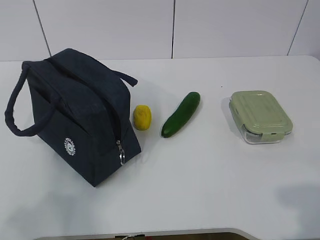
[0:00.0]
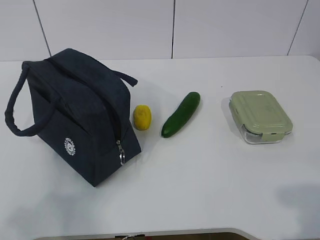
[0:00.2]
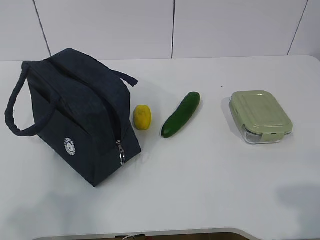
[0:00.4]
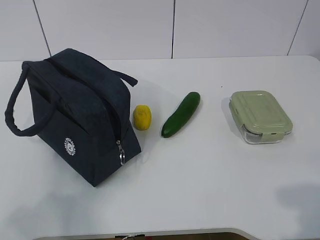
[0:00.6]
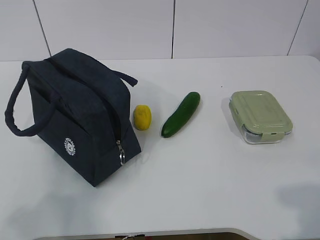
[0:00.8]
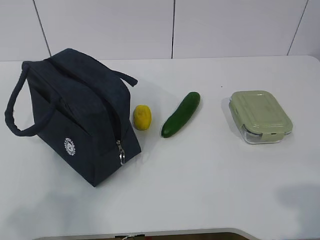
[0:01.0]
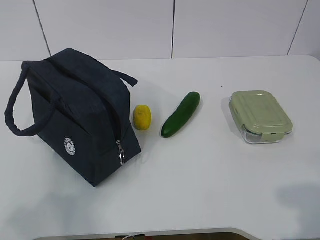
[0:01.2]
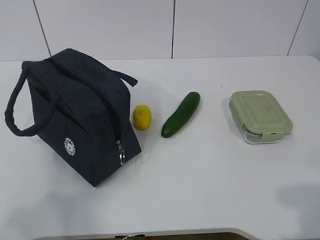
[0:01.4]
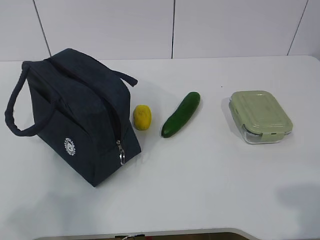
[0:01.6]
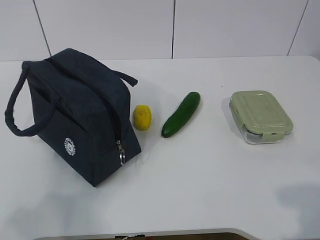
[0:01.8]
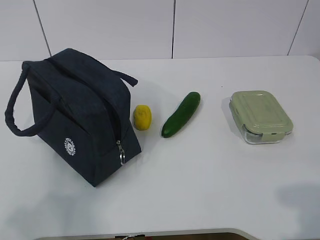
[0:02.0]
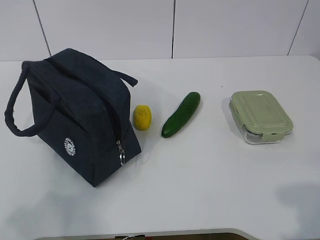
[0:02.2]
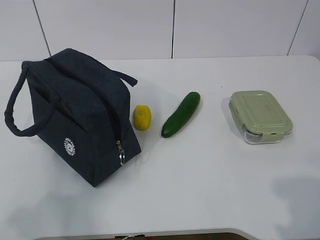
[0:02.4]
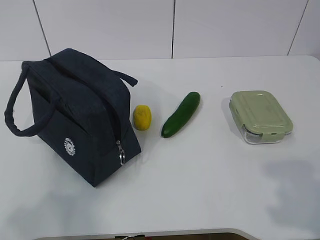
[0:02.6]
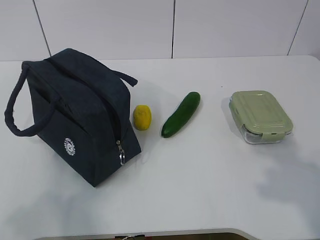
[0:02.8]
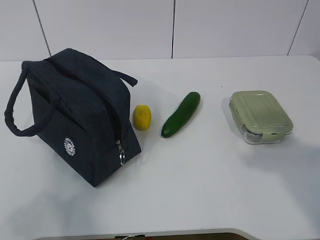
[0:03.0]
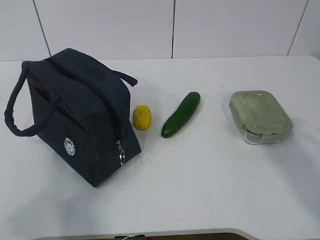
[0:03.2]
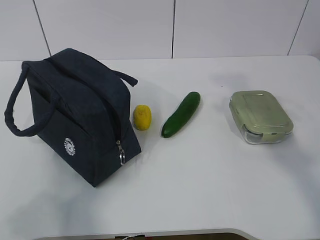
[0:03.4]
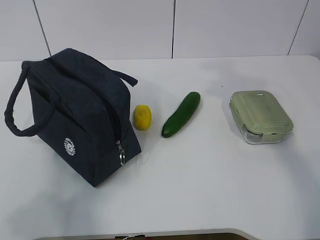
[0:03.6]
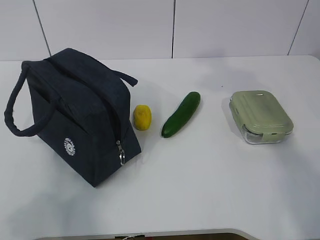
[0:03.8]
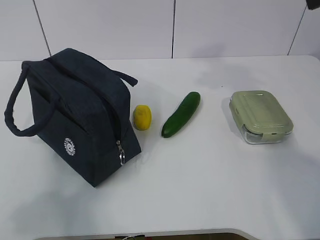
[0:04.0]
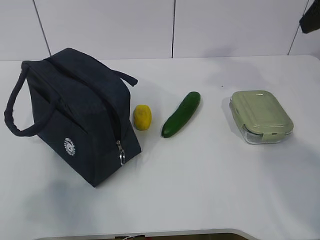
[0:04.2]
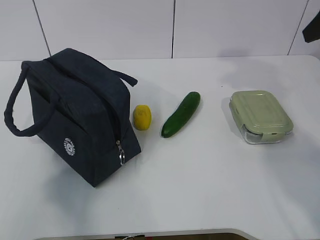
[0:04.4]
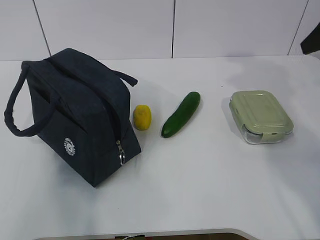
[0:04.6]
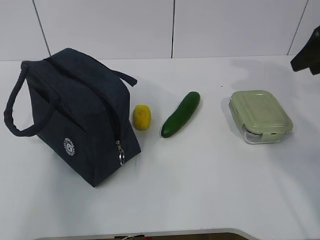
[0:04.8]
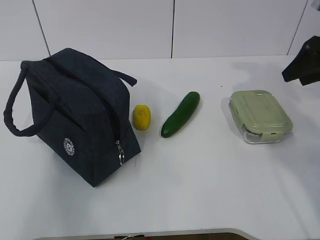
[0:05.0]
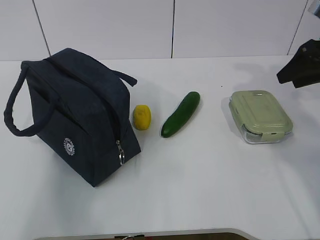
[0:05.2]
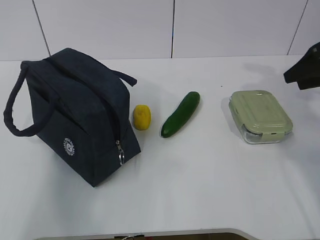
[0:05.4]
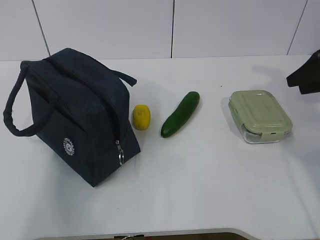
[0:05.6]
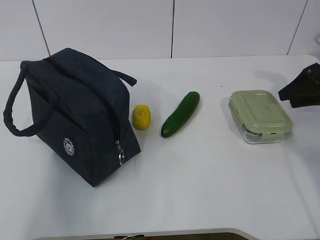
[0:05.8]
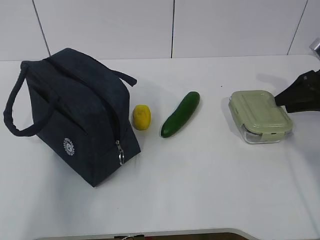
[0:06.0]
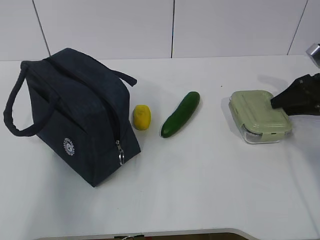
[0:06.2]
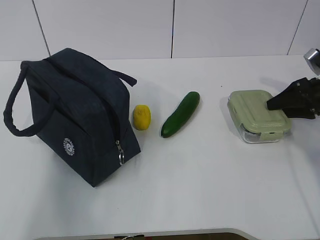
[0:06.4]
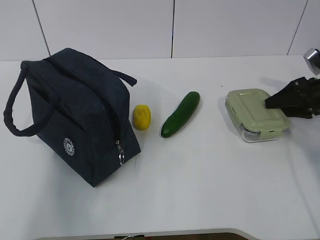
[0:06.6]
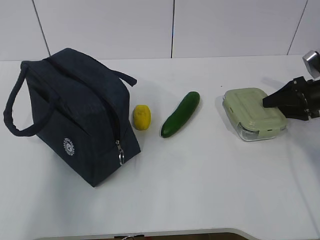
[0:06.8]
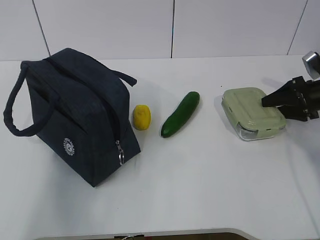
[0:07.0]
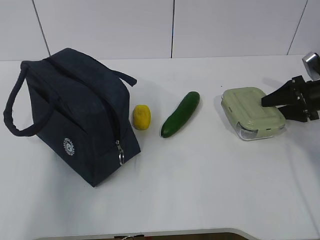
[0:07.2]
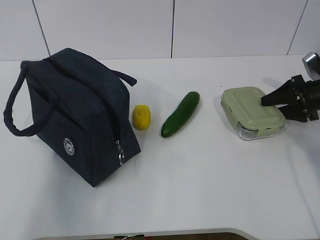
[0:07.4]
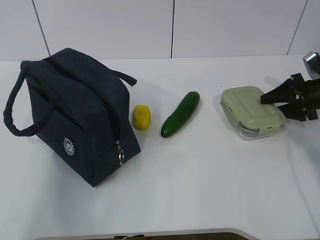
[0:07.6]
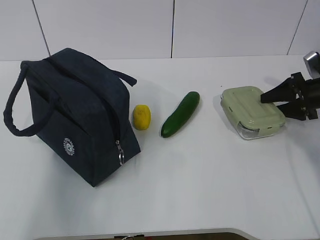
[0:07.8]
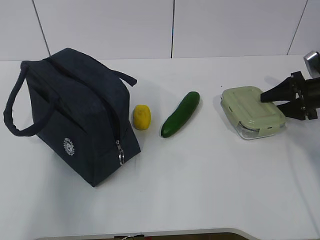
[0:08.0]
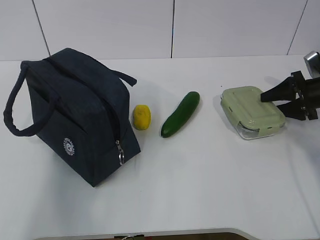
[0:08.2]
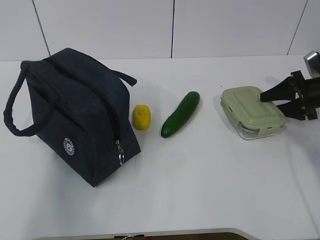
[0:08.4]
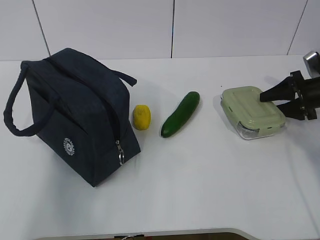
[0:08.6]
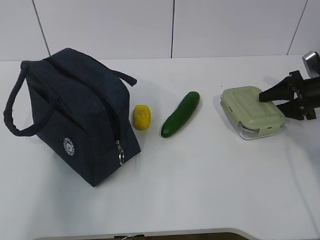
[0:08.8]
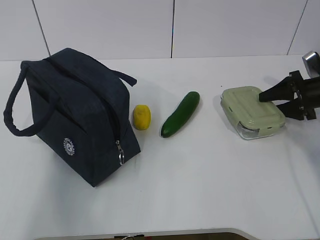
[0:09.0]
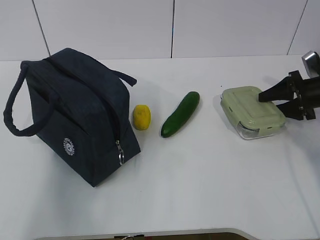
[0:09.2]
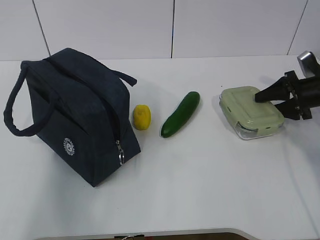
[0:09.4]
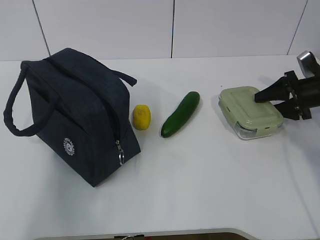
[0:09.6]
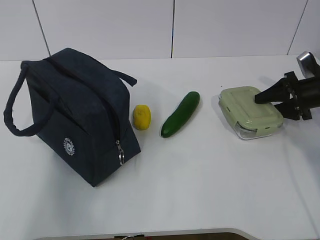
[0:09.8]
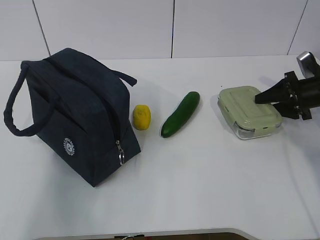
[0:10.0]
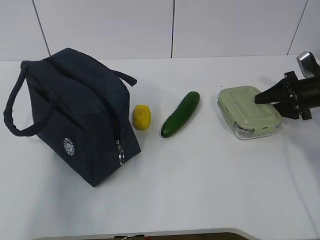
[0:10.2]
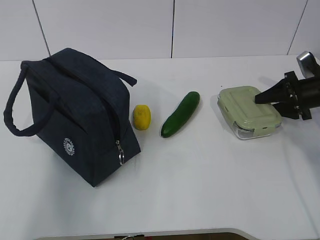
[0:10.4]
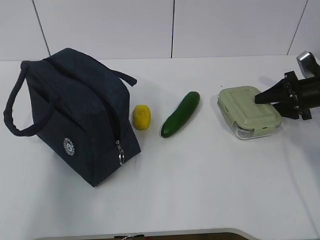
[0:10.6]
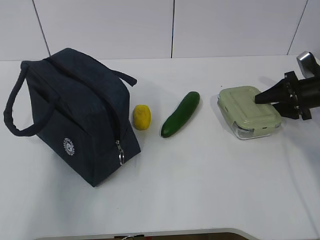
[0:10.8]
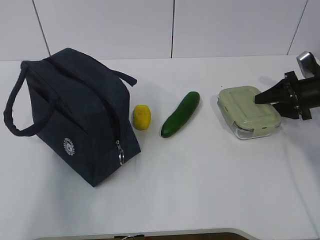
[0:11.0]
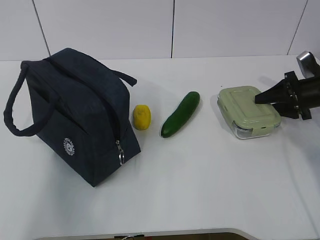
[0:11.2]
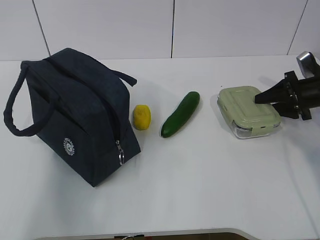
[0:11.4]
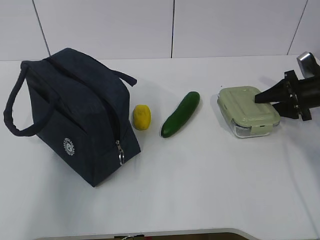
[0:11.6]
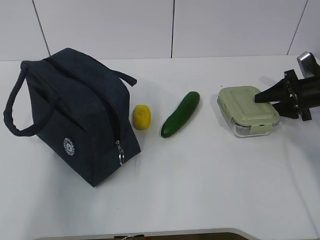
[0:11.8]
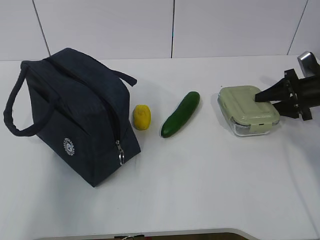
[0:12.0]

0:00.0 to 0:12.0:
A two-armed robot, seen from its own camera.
Step, 0:00.0 to 0:09.4: Grab the lunch box with your right hand.
0:01.6 to 0:03.0: The right gripper heads forward and upward, covering some 10 cm, and opens.
0:03.0 to 0:04.4: The left gripper moves about 5 cm.
0:04.4 to 0:06.0: The right gripper is displaced downward and forward by roughly 20 cm. Meanwhile the left gripper travels forward by roughly 5 cm.
0:06.0 to 0:07.6: The right gripper shifts by about 5 cm.
0:07.6 to 0:10.4: The two grippers keep their place.
0:10.4 to 0:12.0: Neither gripper changes place.

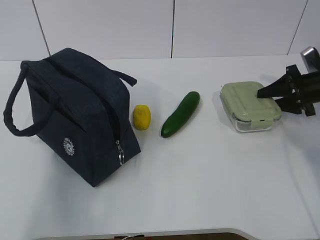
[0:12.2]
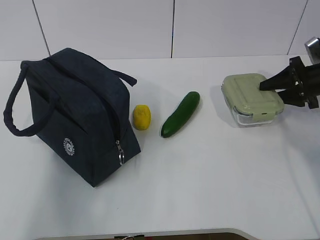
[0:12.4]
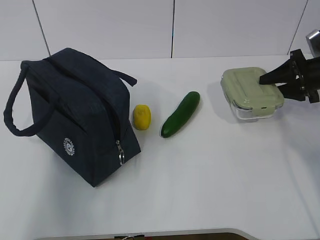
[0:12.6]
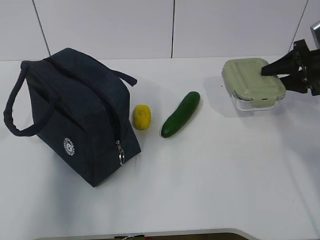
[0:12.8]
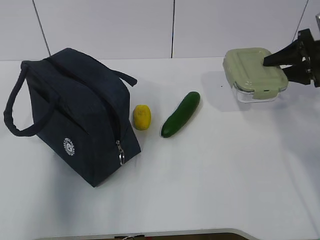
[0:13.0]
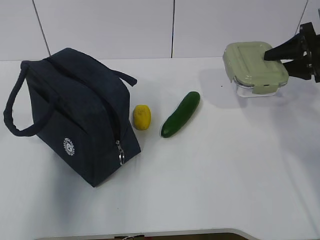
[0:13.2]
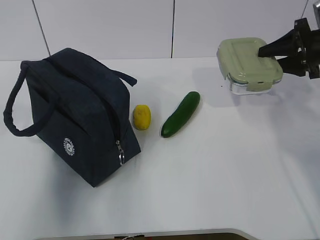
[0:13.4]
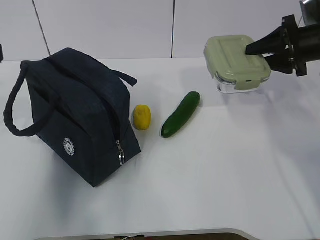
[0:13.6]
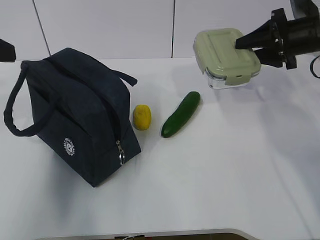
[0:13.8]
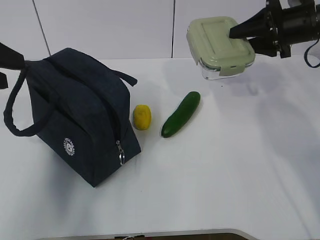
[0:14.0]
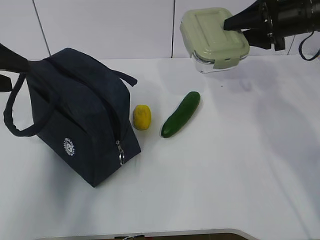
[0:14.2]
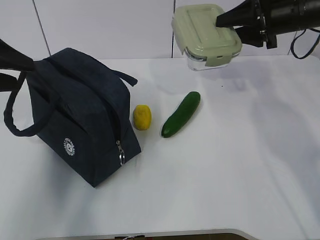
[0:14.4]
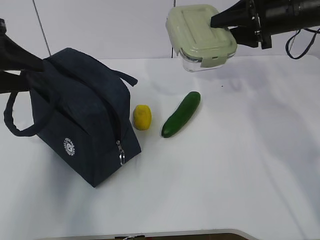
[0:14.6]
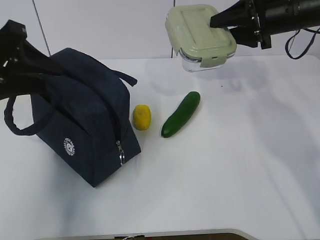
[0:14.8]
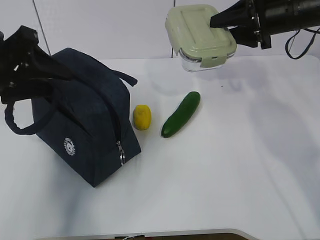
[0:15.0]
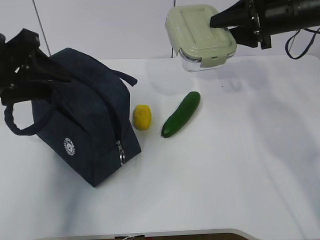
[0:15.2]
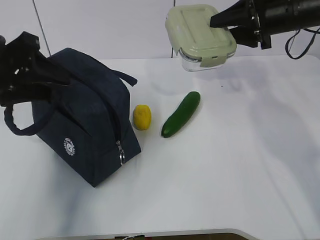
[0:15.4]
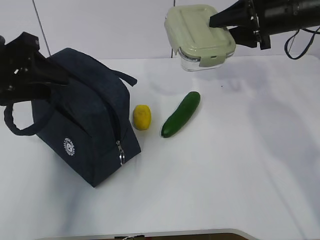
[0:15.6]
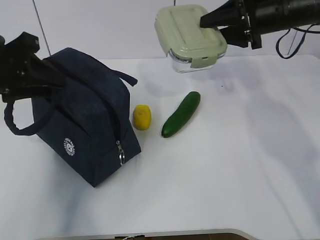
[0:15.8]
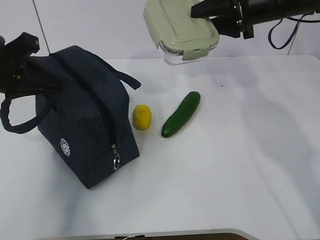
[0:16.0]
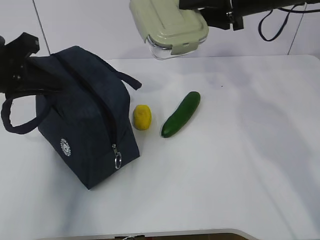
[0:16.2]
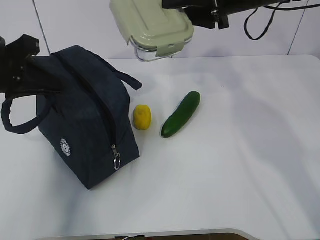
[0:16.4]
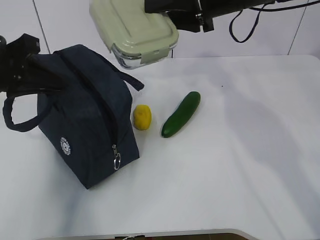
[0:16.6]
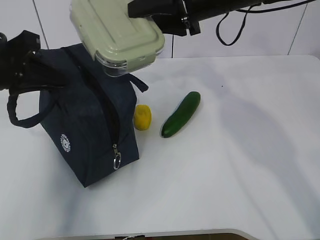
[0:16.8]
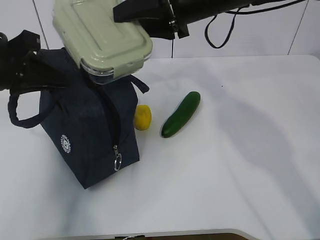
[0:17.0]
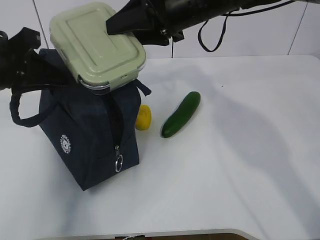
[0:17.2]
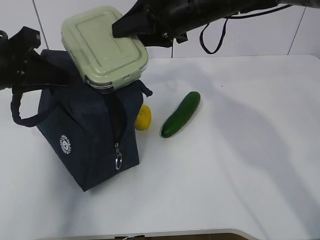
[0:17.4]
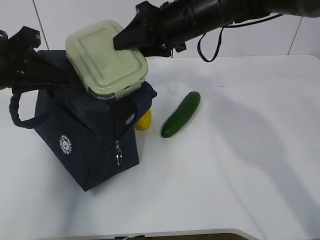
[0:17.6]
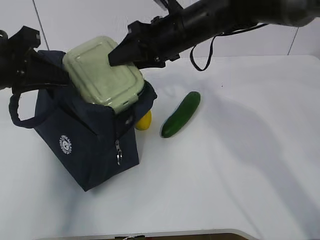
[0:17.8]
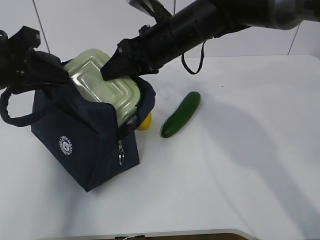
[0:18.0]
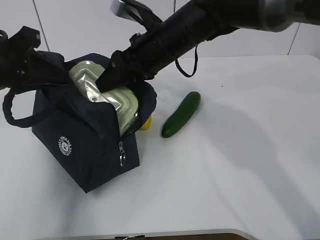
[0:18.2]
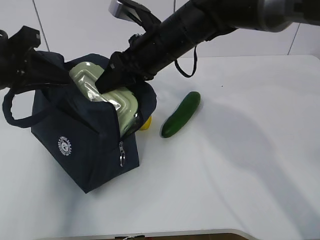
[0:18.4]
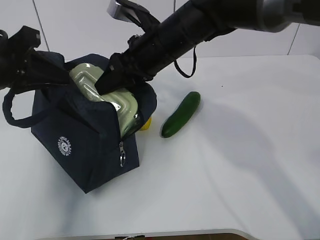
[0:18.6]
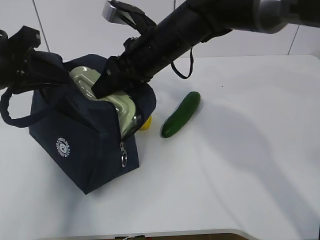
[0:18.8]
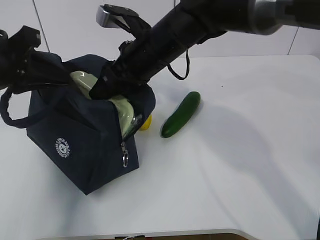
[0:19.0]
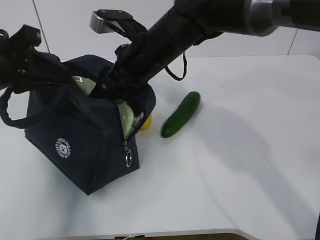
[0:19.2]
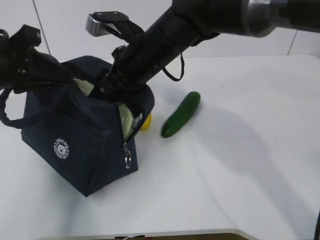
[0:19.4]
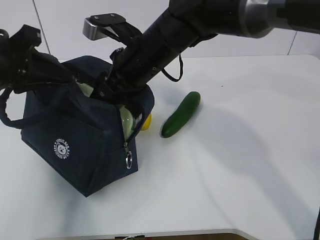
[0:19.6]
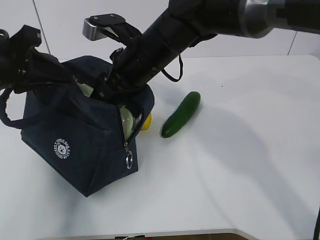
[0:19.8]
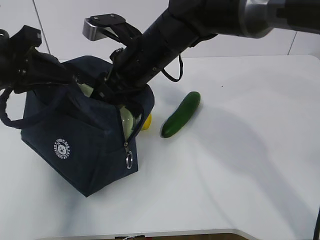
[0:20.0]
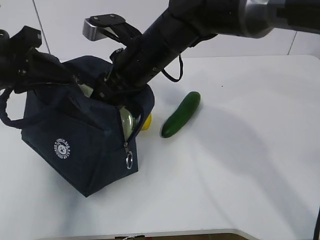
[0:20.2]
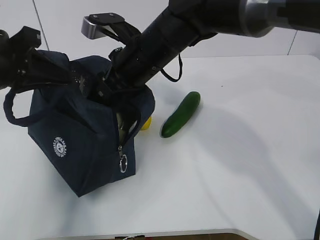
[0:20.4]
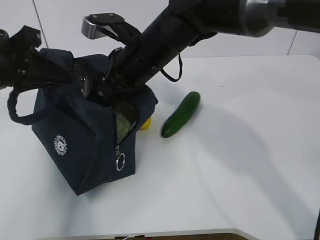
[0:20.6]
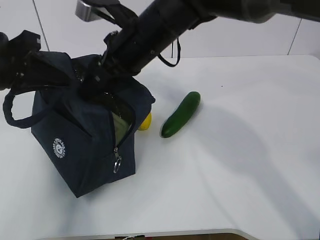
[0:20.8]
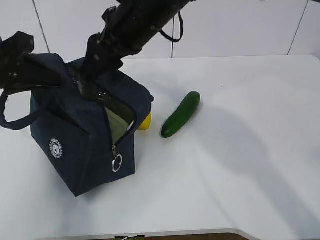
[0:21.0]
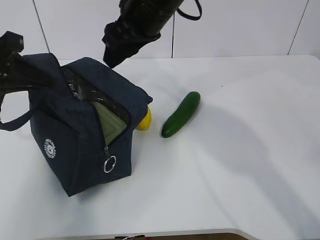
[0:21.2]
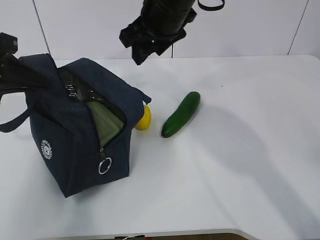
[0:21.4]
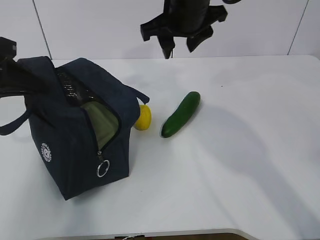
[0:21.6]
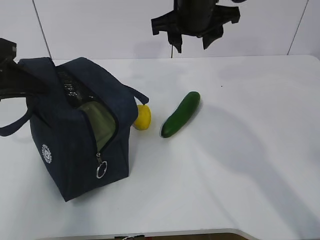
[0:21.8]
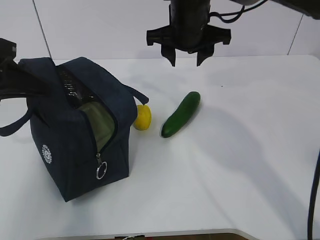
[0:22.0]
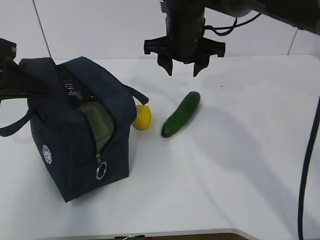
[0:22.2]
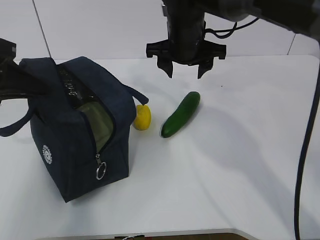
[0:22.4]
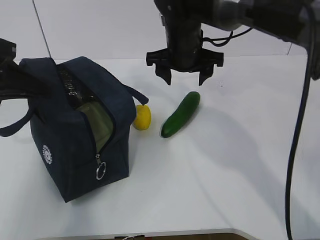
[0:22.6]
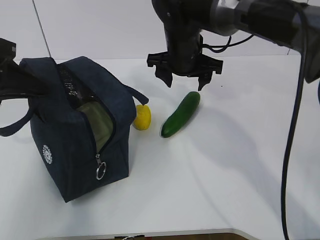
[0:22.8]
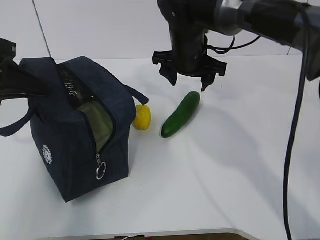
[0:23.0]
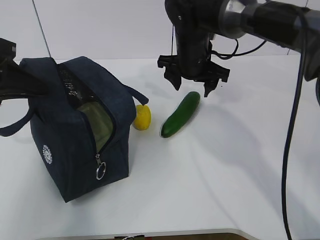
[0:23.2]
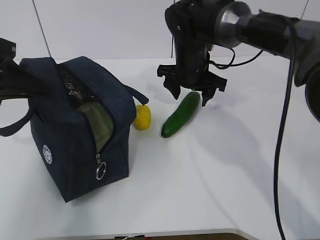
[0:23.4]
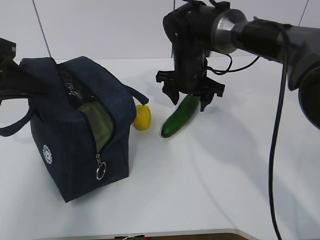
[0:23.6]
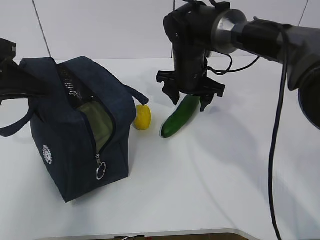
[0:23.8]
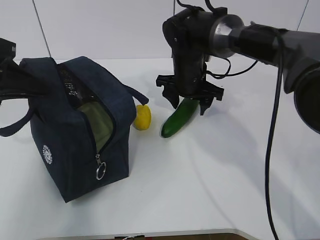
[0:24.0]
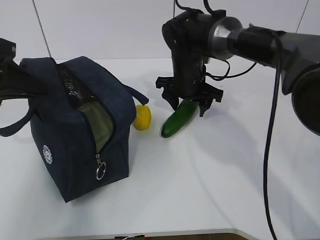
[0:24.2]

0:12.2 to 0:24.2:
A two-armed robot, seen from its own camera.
Step, 0:12.2 to 0:14.4: Grab the lunch bag with your left hand.
Step, 0:14.6 to 0:17.0: Place it into the bag with your right hand.
Step, 0:17.4 to 0:20.6: Grab the cucumber with your right hand.
0:12.2 to 0:13.8: The right gripper is displaced upward and to the left by approximately 15 cm, while the left gripper moves forward, about 15 cm.
0:13.8 to 0:15.2: The left gripper goes approximately 10 cm downward and forward. The right gripper travels to the left by about 5 cm.
0:15.2 to 0:16.6: The right gripper travels to the left by about 10 cm. Meanwhile the left gripper closes.
0:16.6 to 0:18.2: The right gripper goes approximately 15 cm to the left and downward.
0:18.2 to 0:19.8: The grippers move only a little.
0:19.8 to 0:21.2: The right gripper travels upward by roughly 5 cm.
0:21.2 to 0:22.6: The right gripper is displaced downward by about 10 cm.
0:22.6 to 0:24.2: The right gripper heads downward, covering roughly 5 cm.
